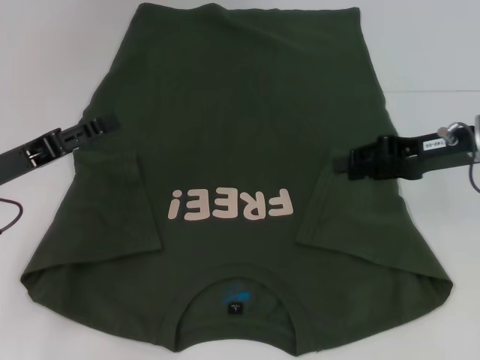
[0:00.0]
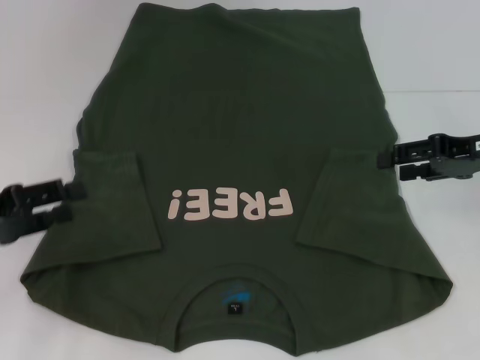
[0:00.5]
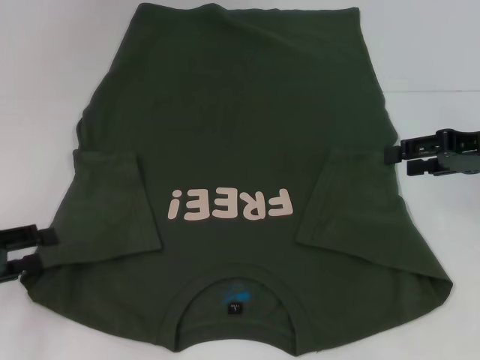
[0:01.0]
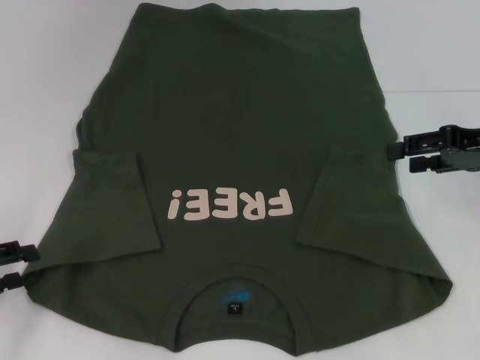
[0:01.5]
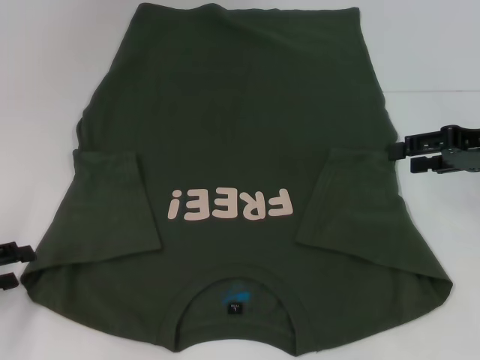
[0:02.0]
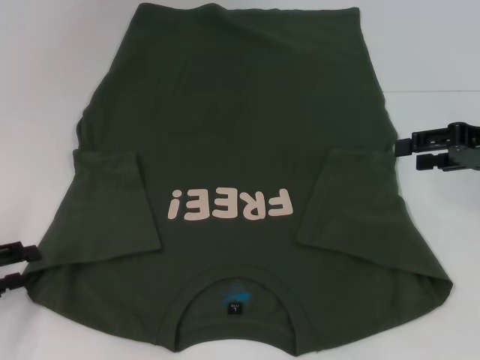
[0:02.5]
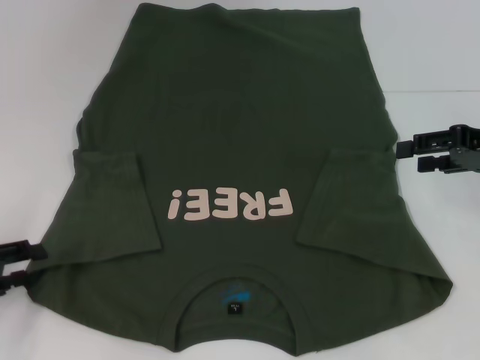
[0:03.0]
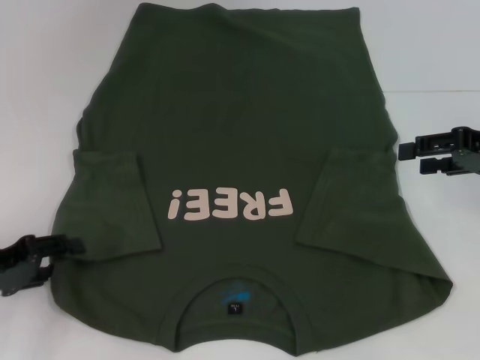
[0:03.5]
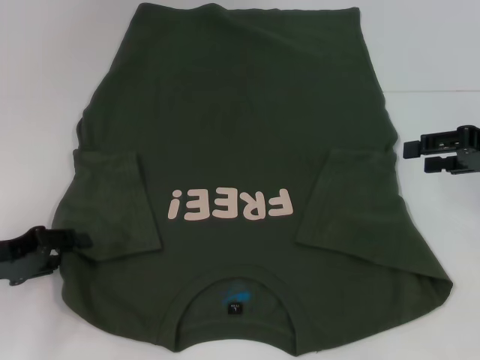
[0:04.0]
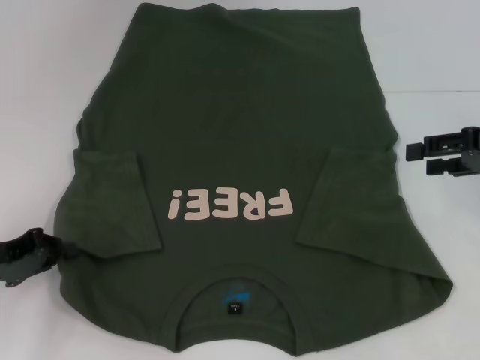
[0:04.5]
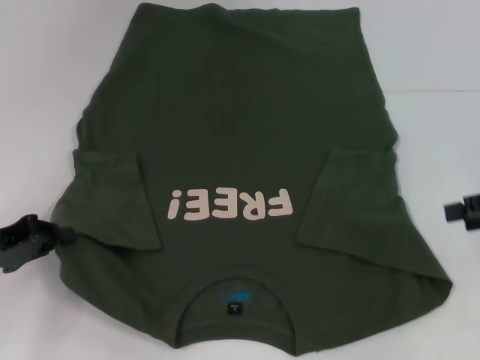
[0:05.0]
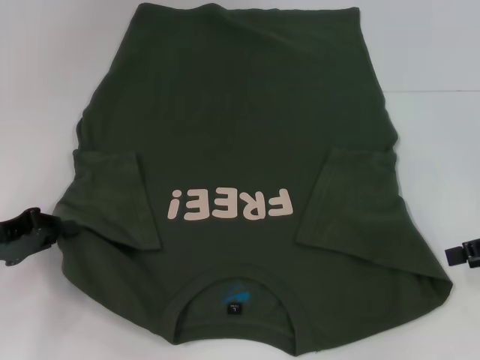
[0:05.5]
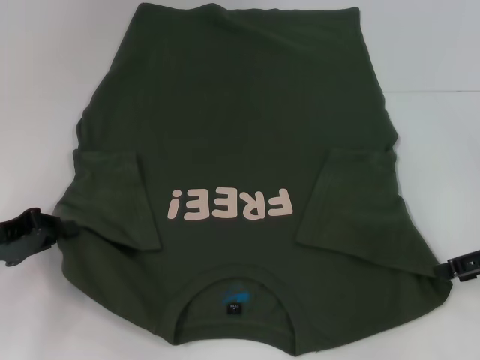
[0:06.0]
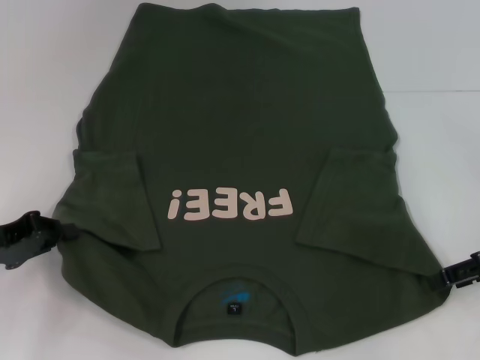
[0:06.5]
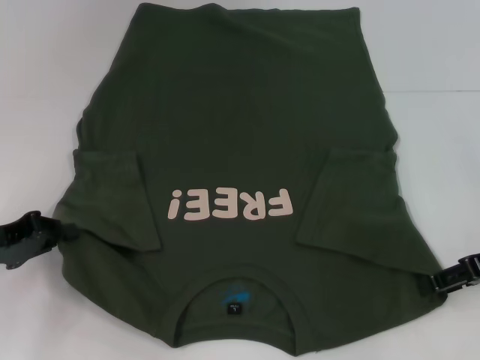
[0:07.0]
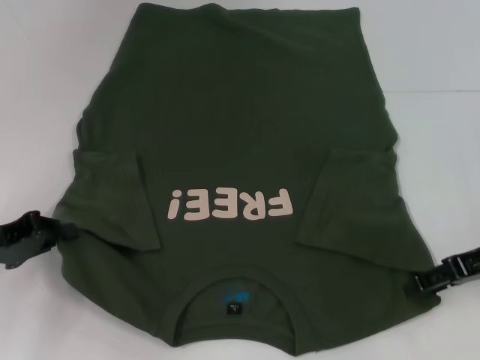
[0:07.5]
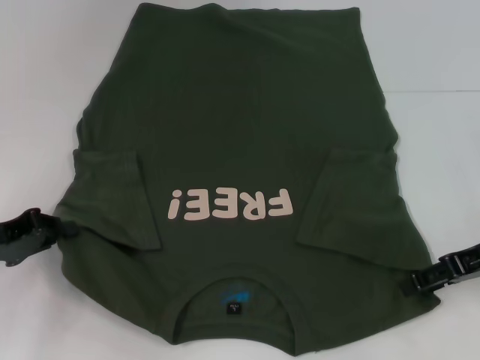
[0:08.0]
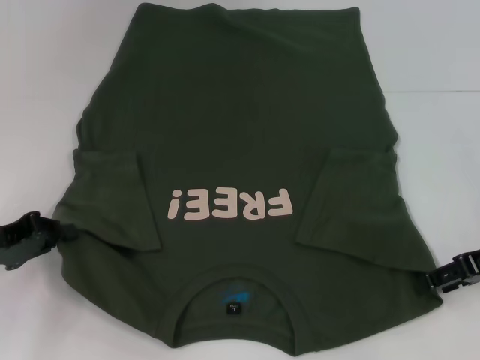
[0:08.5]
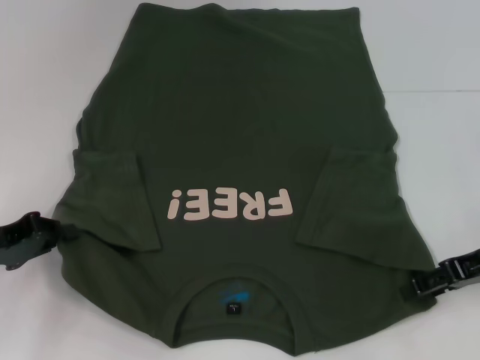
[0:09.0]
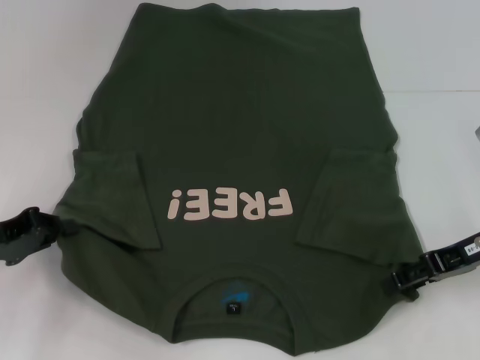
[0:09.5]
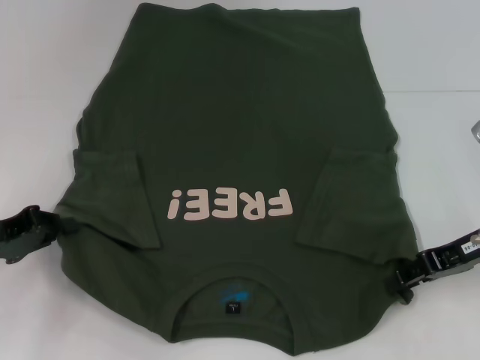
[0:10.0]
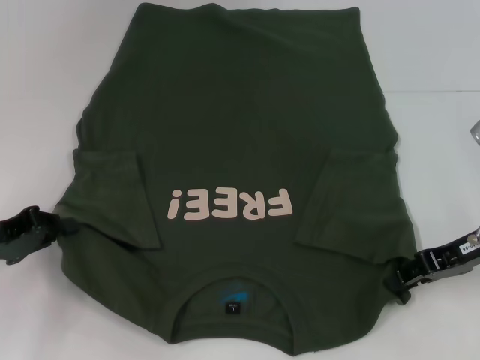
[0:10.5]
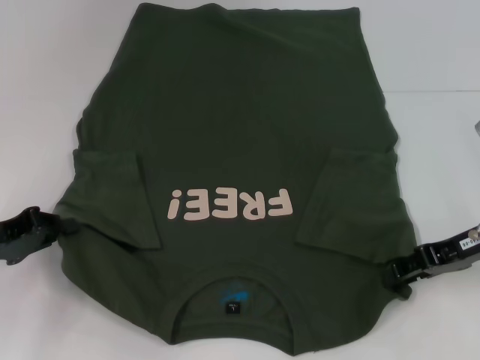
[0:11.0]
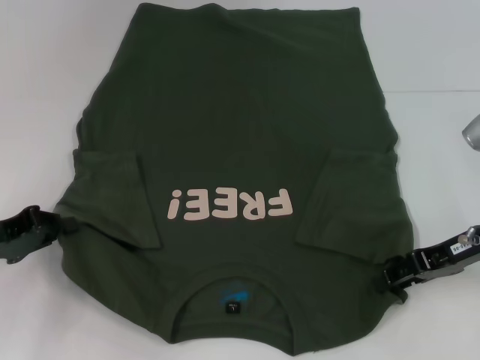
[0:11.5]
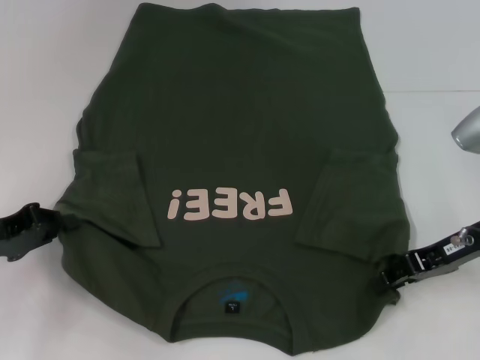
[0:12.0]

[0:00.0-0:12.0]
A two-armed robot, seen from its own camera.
Step, 0:00.5 to 0:04.5: Grab the bottom left corner with your left hand.
Step, 0:05.0 to 0:10.5: Grab the bottom right corner with your right hand.
0:00.0 to 0:02.0: The left gripper goes roughly 10 cm to the left and backward. Meanwhile the right gripper heads to the right, covering roughly 5 cm, and opens.
0:02.0 to 0:04.0: The left gripper ends up roughly 5 cm from where it was.
0:04.0 to 0:06.0: The left gripper closes up, while the right gripper moves backward, approximately 5 cm.
0:08.0 to 0:12.0: The grippers make only small movements.

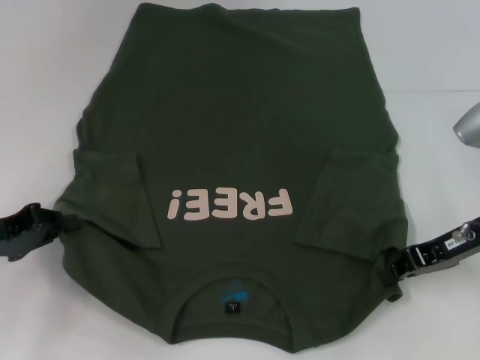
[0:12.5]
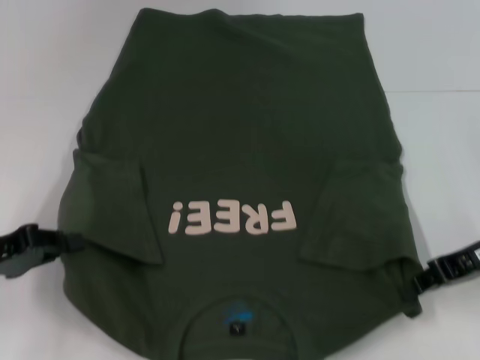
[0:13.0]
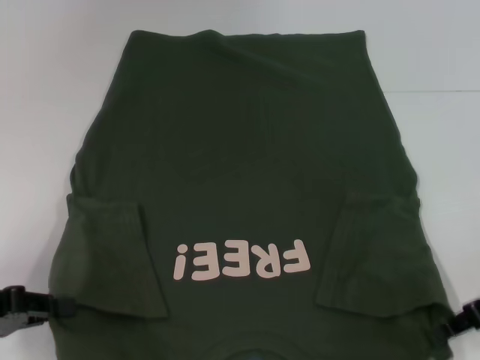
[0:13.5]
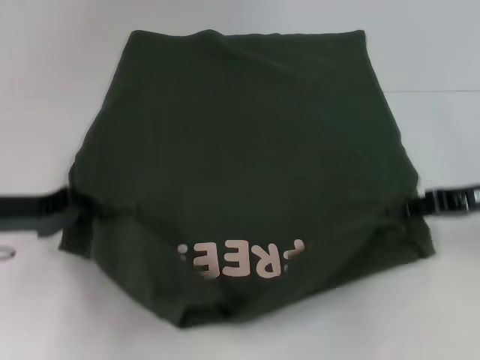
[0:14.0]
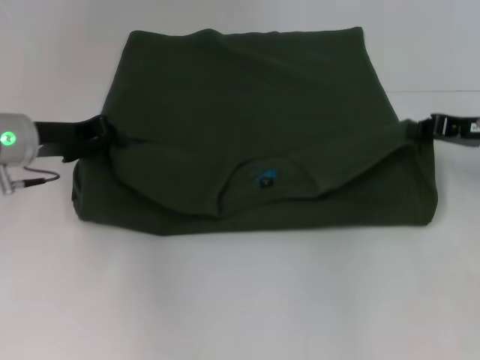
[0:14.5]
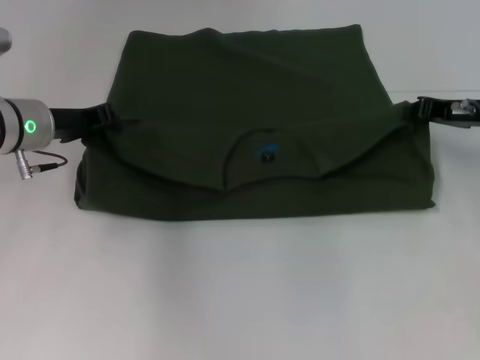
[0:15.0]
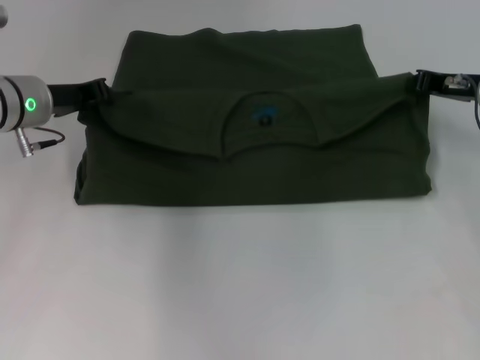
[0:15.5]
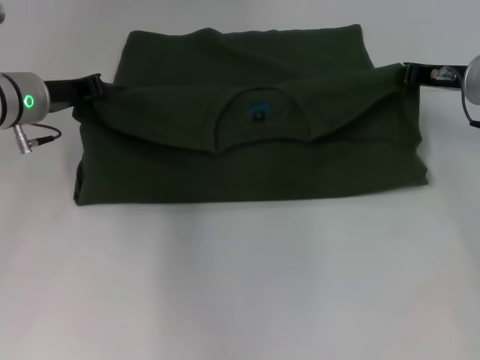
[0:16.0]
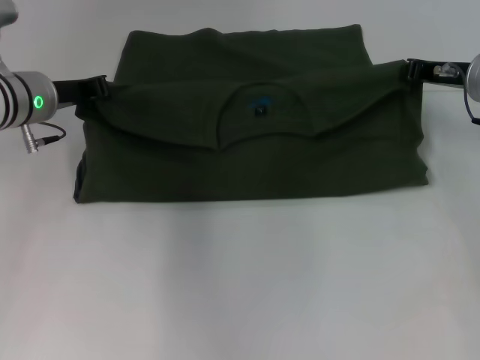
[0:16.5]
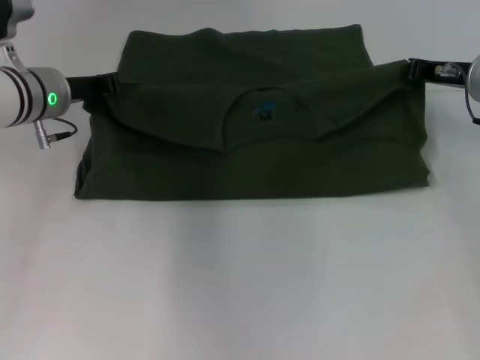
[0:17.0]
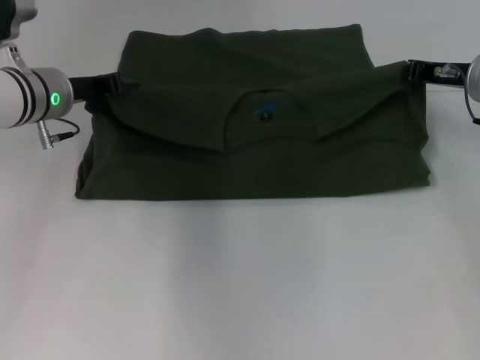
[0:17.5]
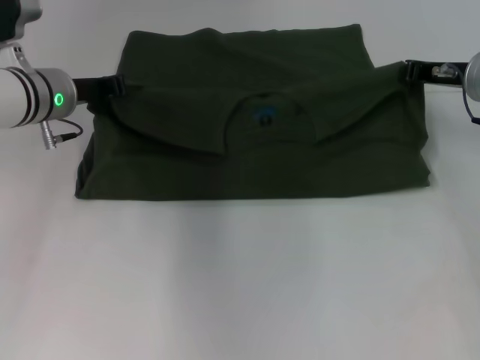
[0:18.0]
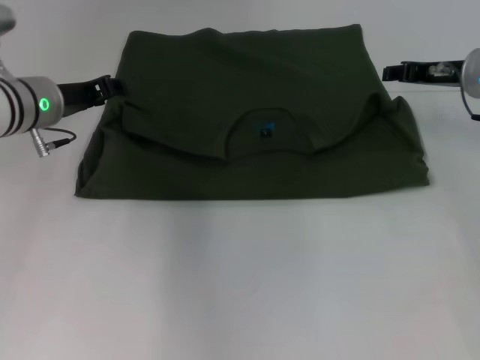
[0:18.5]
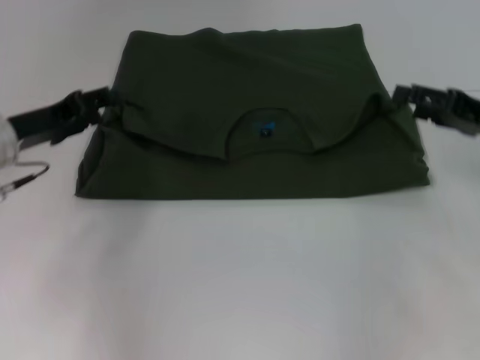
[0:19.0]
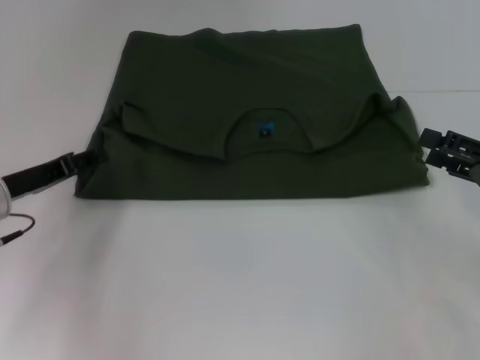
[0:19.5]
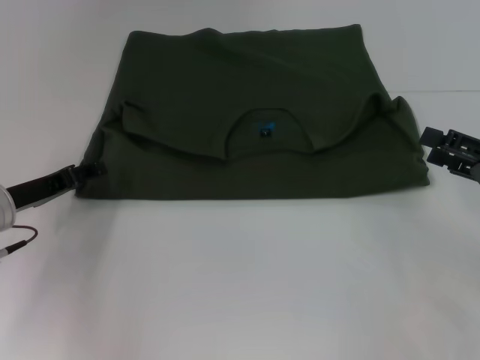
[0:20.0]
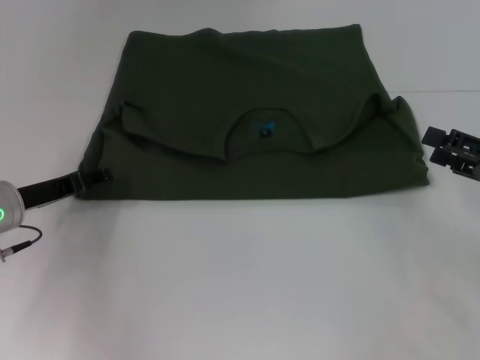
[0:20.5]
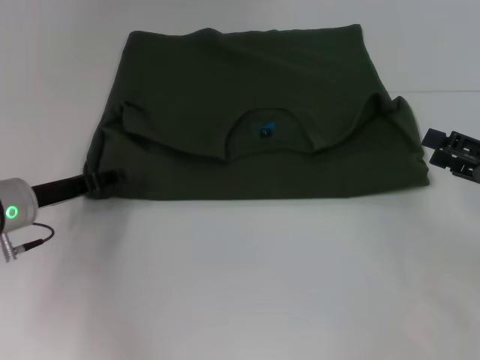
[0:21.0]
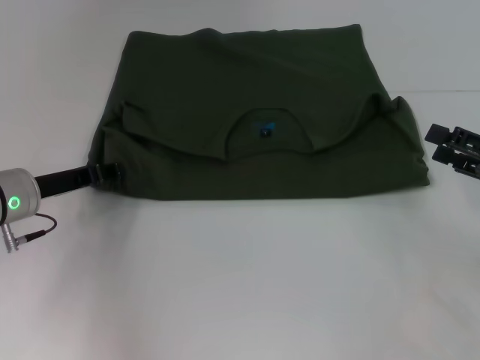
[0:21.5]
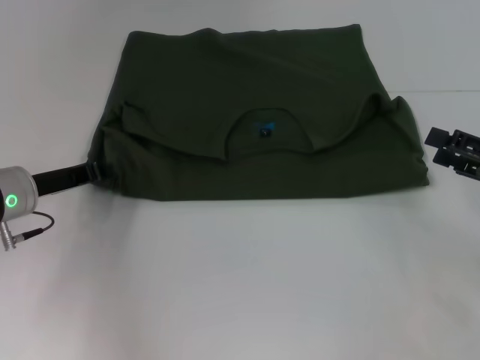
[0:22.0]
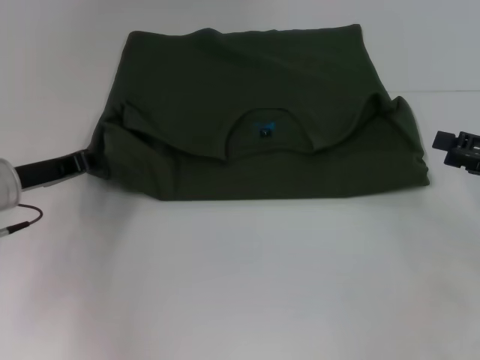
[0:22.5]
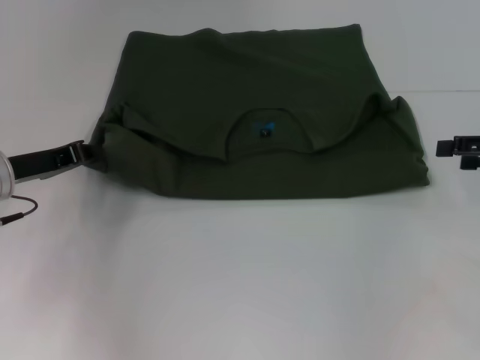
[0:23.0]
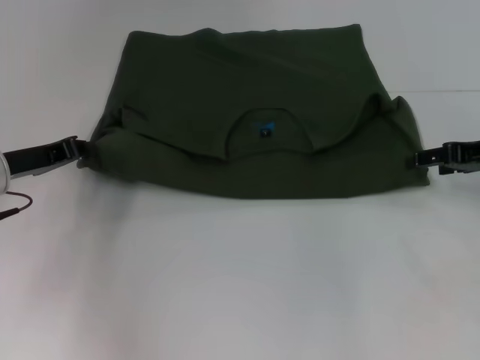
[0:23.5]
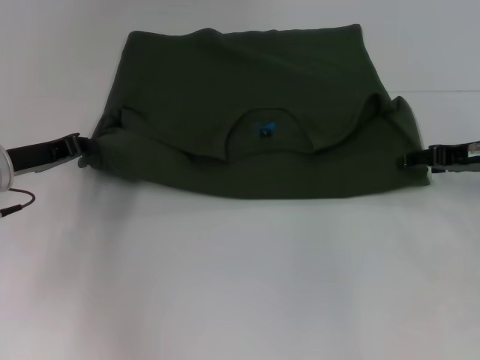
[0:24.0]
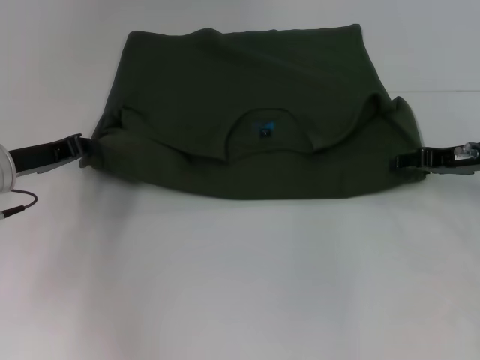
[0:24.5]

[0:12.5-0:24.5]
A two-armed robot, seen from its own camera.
Step, 0:12.5 to 0:18.0: Fold the clothes with your left hand.
Step, 0:12.5 to 0:18.0: Fold the clothes with your right hand.
0:12.5 to 0:14.5: The right gripper ends up some 5 cm from where it was; the left gripper heads forward and to the right, covering roughly 15 cm.
0:14.5 to 0:16.5: The right gripper moves forward, roughly 5 cm.
0:16.5 to 0:18.5: The right gripper opens up. The left gripper opens up.
0:18.5 to 0:20.5: The left gripper heads backward, downward and to the left, covering approximately 10 cm. Meanwhile the right gripper heads backward and to the right, covering some 20 cm, and opens.
0:20.5 to 0:22.5: The left gripper closes its fingers.
0:22.5 to 0:24.5: The right gripper heads forward and to the left, covering roughly 10 cm.

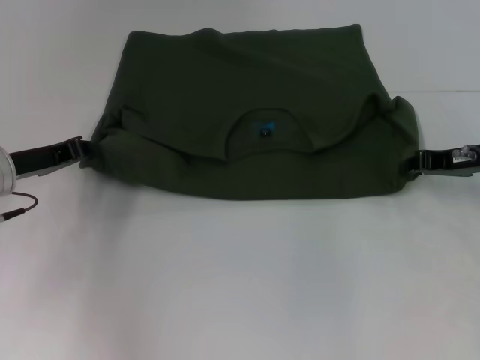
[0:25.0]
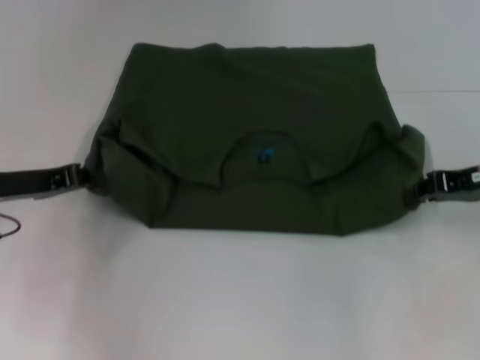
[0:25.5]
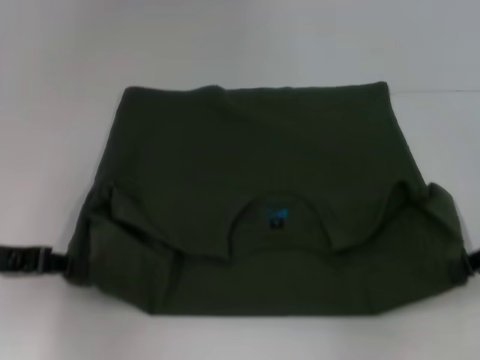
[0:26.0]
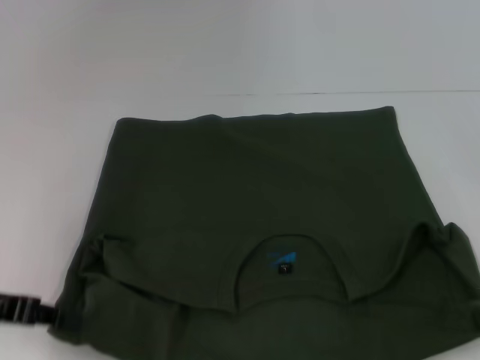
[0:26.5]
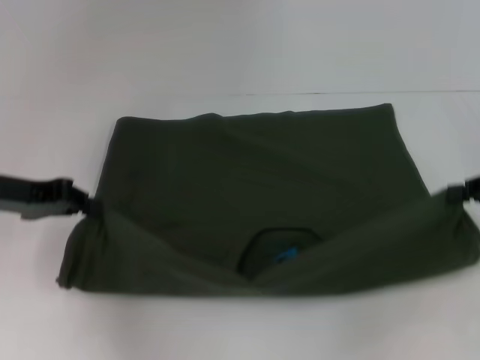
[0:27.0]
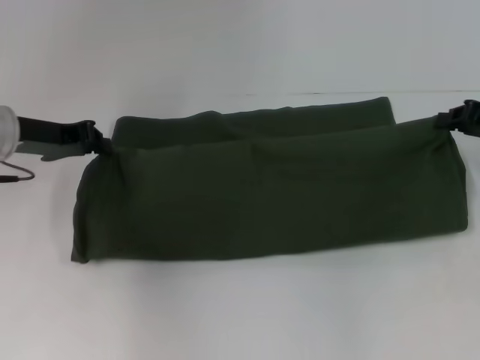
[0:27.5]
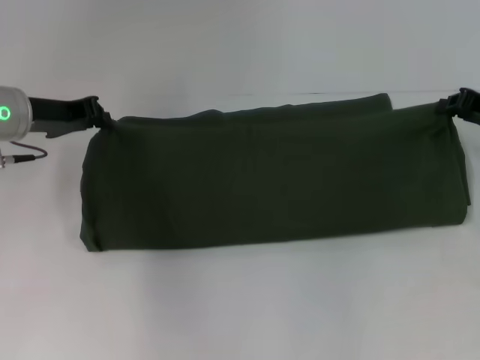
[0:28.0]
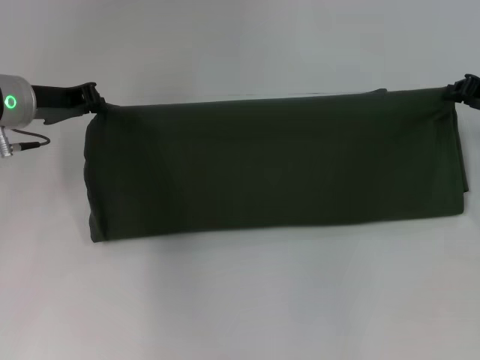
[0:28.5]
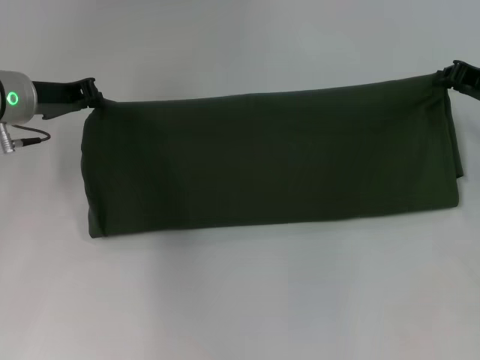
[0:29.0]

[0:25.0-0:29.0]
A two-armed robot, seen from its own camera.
0:25.0 to 0:27.0: The left gripper is displaced upward by some 5 cm, and reaches approximately 10 cm backward, then returns. Meanwhile the right gripper travels to the right and backward by approximately 10 cm, and closes its fingers.
0:27.0 to 0:29.0: The grippers both shift forward by approximately 10 cm.
